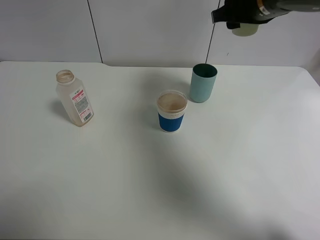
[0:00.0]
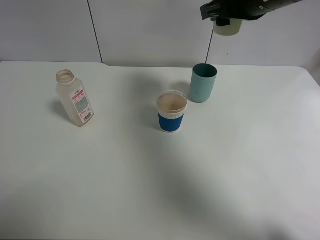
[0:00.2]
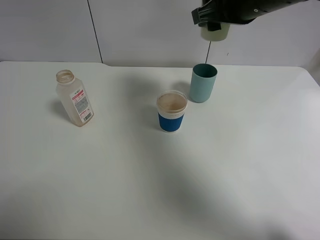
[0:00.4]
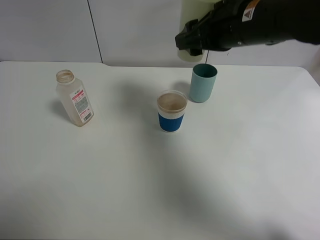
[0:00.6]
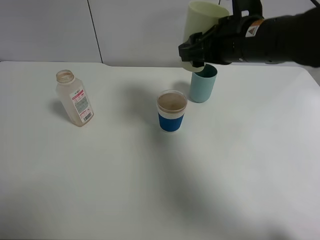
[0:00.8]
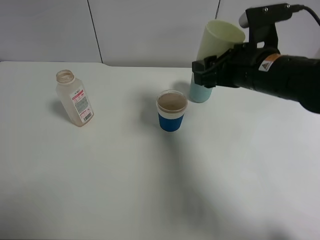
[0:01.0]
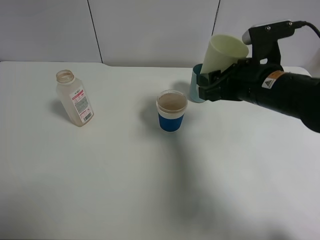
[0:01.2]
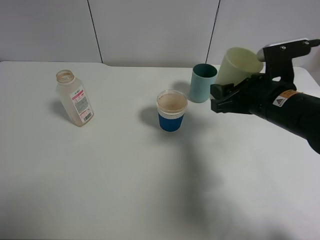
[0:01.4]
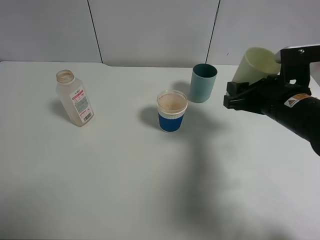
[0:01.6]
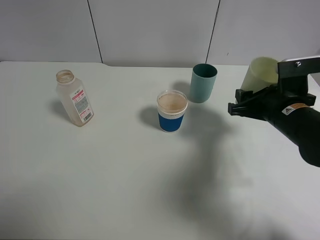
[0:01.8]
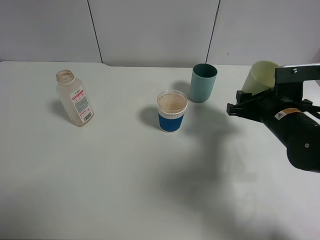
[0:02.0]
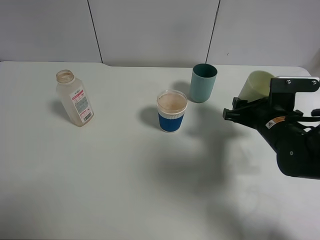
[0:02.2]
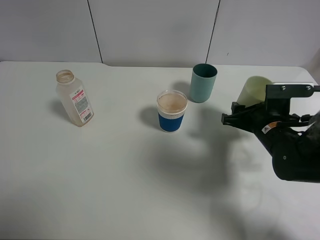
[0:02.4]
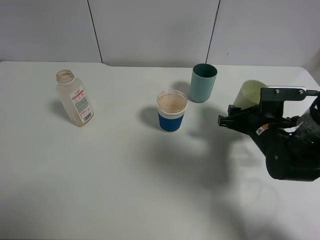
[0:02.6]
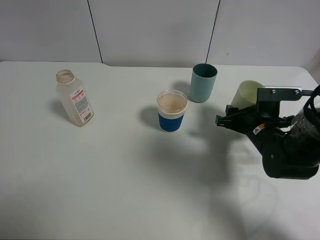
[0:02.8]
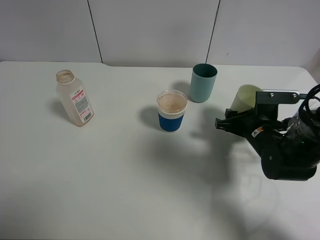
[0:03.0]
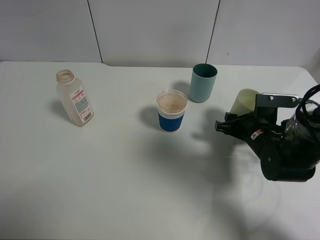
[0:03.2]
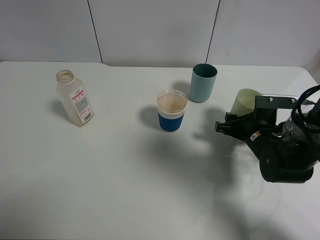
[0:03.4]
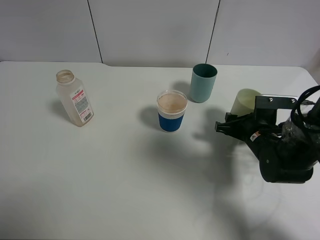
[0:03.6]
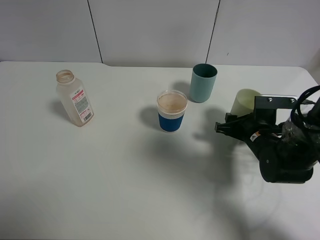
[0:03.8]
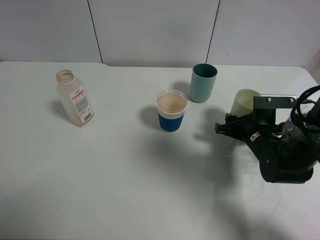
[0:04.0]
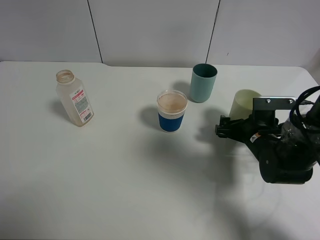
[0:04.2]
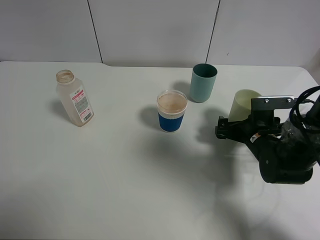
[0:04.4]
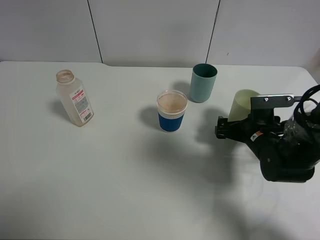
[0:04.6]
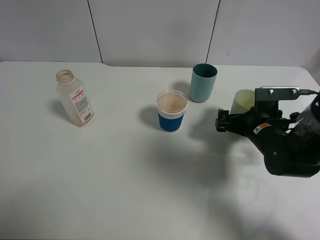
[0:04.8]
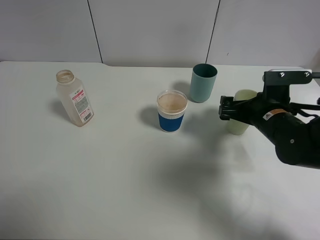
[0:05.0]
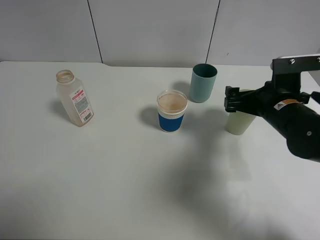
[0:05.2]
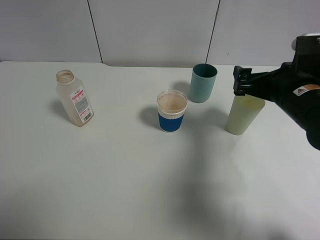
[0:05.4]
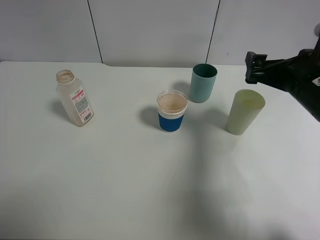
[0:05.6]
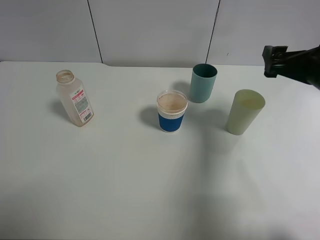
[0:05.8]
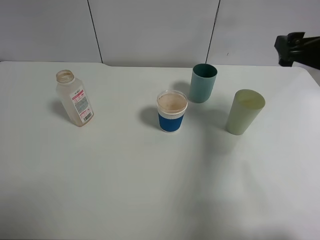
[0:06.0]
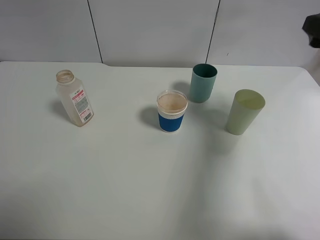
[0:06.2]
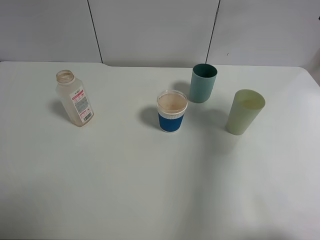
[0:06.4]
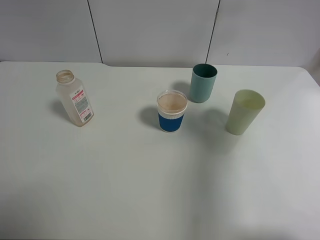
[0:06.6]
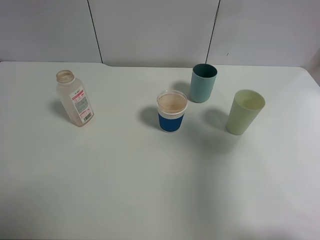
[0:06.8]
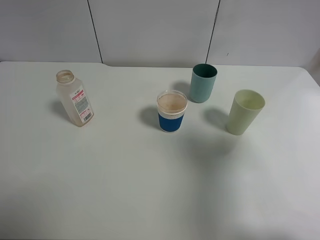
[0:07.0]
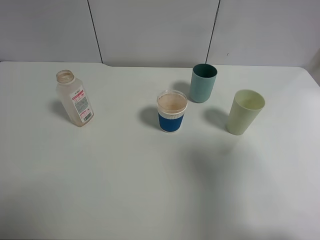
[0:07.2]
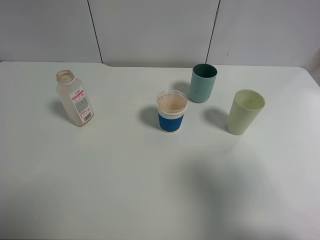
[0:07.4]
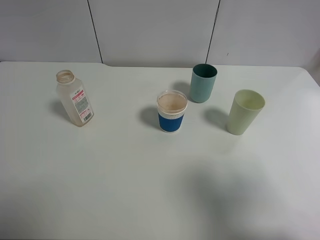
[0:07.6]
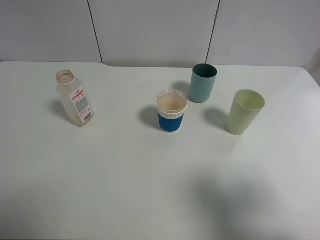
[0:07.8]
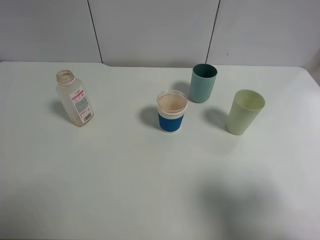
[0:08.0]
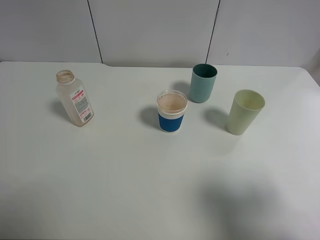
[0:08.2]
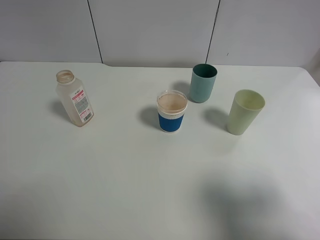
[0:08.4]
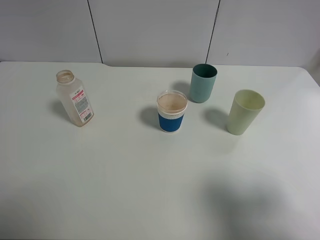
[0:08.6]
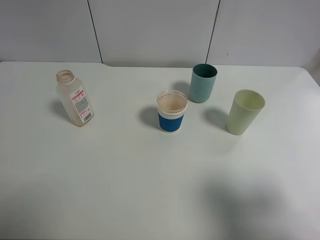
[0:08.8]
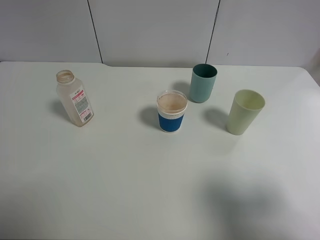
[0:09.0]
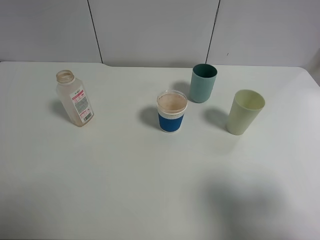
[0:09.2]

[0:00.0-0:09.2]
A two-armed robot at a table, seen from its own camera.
Task of the whole recording: use a clamp to hold the bottle of the drink, pour the beverage into a random cup, then clamp the cup containing the drink and pour the drink into another random cup.
Step, 0:00.0 to 0:04.6: Place the green plastic cup on the table with right gripper.
0:00.0 to 0:01.6: The right gripper moves downward, backward and to the right, roughly 20 cm.
0:01.6 to 0:03.0: The right gripper shifts approximately 10 cm downward.
0:03.0 to 0:04.6: The right gripper opens.
0:04.6 to 0:06.2: The right gripper heads upward, covering about 25 cm.
0:06.2 to 0:07.6: The right gripper shifts about 20 cm backward.
0:07.6 to 0:09.2: There are only small adjustments of the grippers.

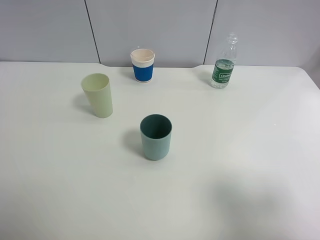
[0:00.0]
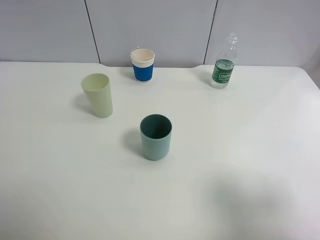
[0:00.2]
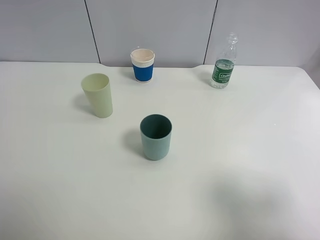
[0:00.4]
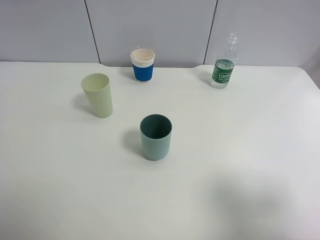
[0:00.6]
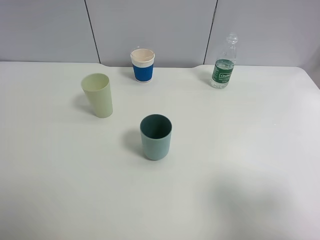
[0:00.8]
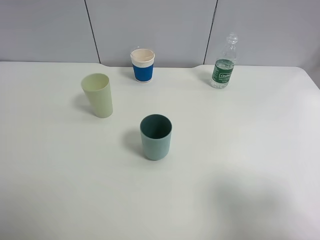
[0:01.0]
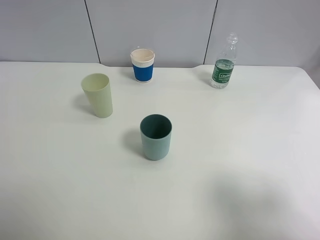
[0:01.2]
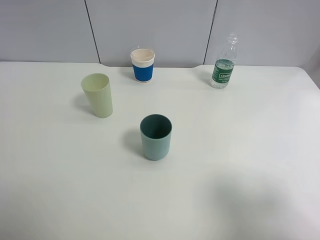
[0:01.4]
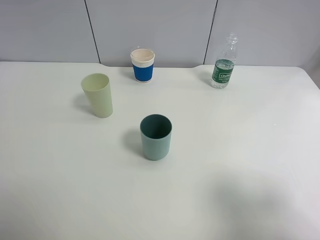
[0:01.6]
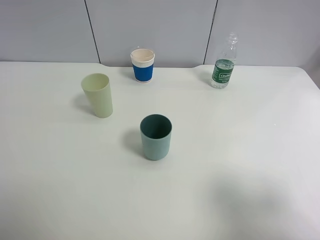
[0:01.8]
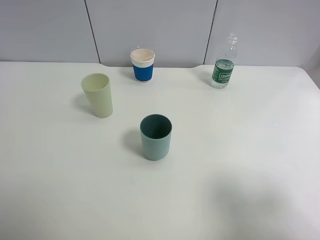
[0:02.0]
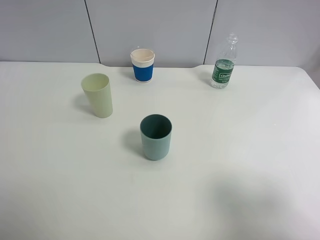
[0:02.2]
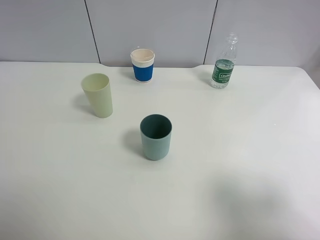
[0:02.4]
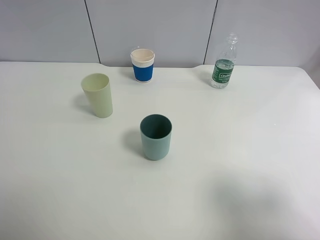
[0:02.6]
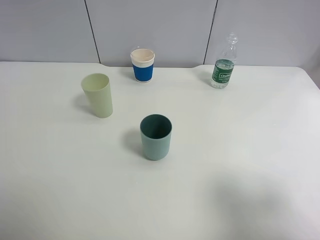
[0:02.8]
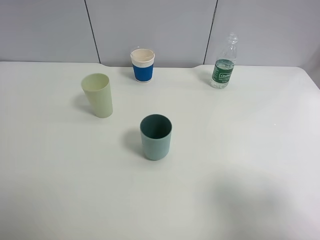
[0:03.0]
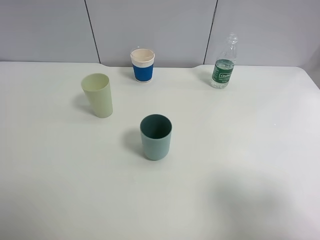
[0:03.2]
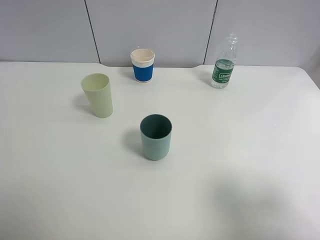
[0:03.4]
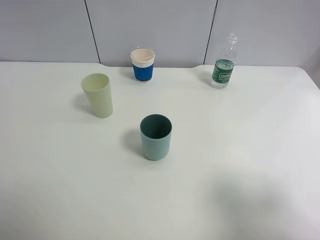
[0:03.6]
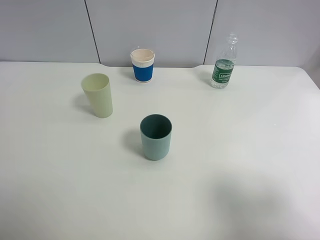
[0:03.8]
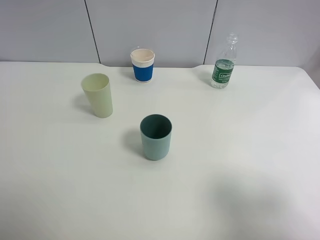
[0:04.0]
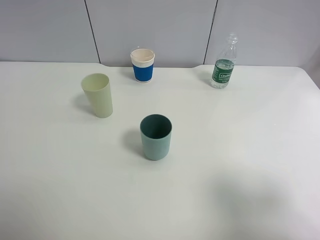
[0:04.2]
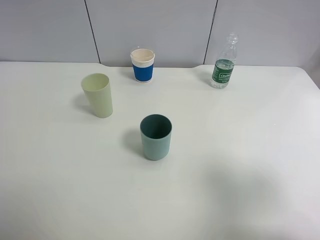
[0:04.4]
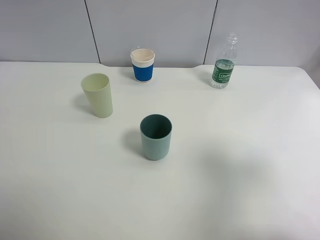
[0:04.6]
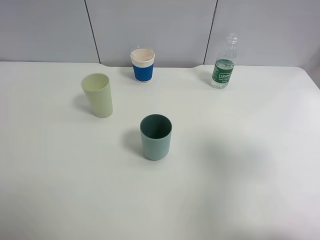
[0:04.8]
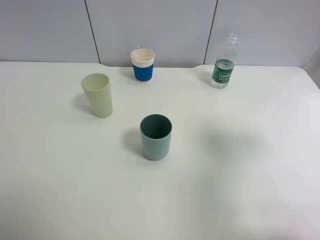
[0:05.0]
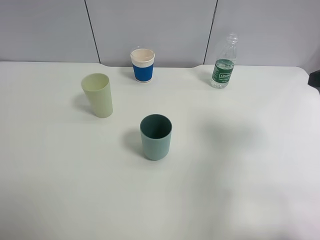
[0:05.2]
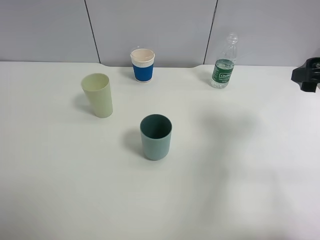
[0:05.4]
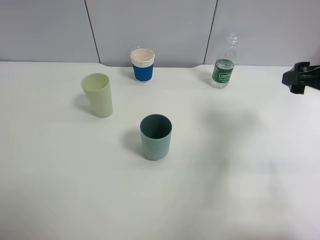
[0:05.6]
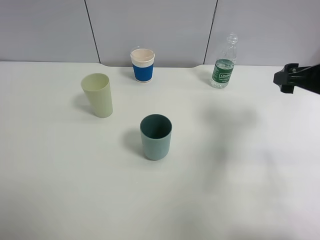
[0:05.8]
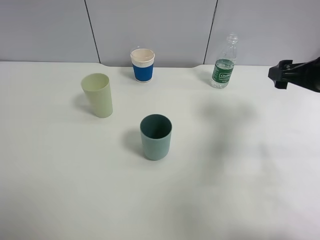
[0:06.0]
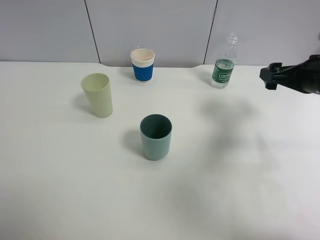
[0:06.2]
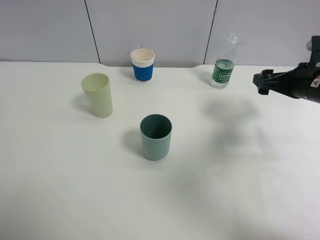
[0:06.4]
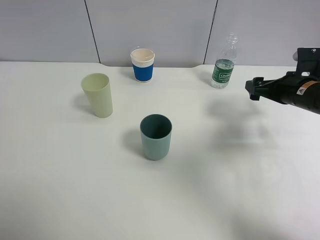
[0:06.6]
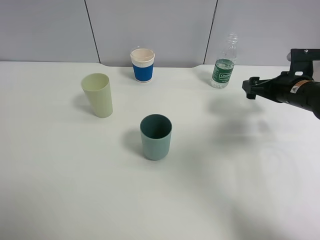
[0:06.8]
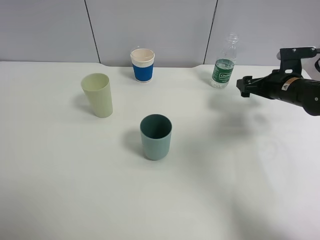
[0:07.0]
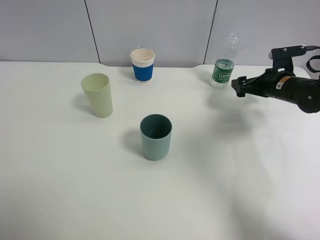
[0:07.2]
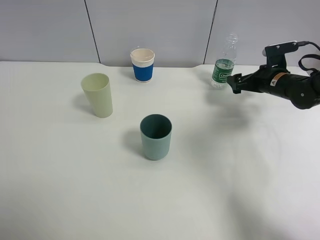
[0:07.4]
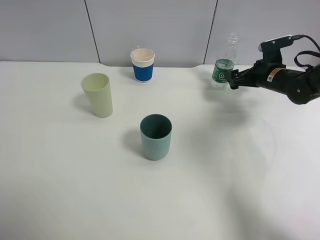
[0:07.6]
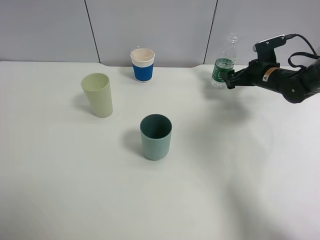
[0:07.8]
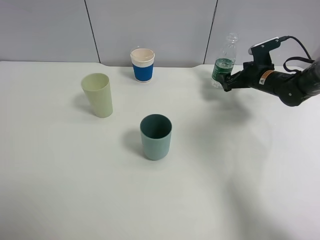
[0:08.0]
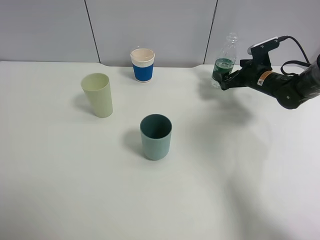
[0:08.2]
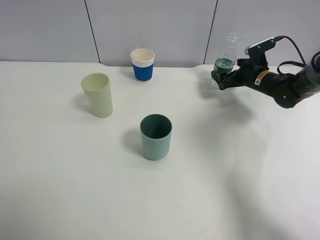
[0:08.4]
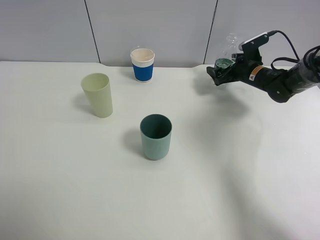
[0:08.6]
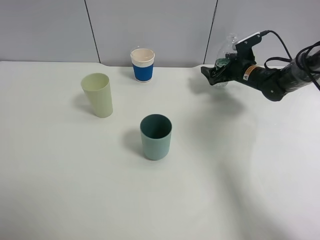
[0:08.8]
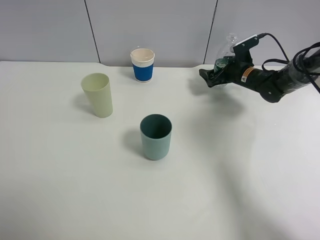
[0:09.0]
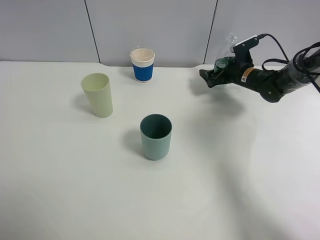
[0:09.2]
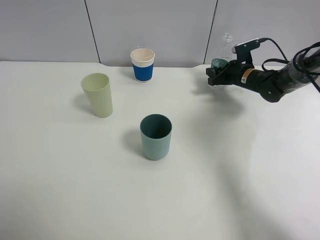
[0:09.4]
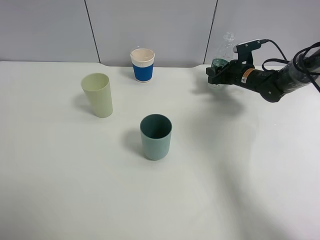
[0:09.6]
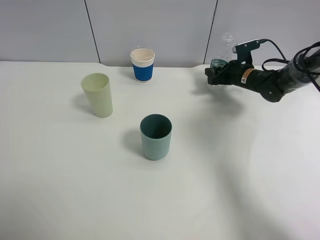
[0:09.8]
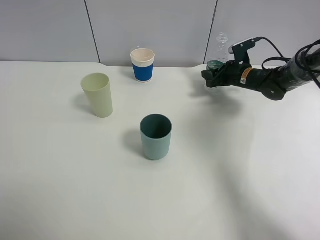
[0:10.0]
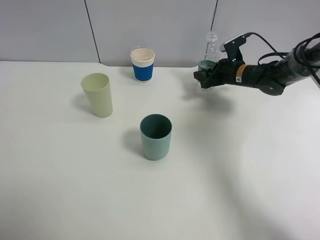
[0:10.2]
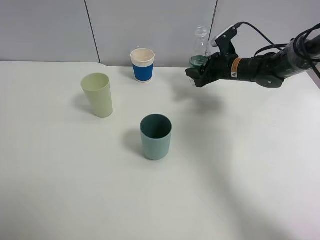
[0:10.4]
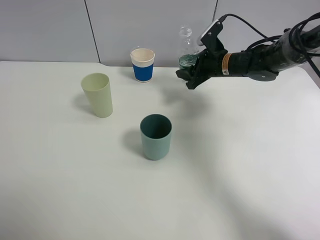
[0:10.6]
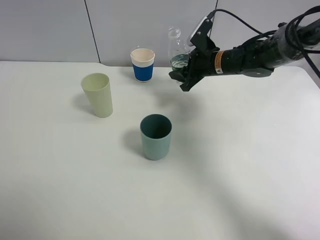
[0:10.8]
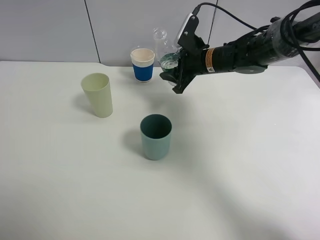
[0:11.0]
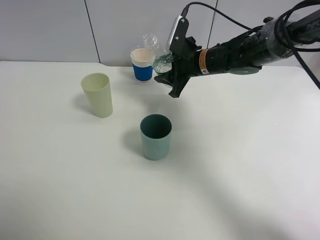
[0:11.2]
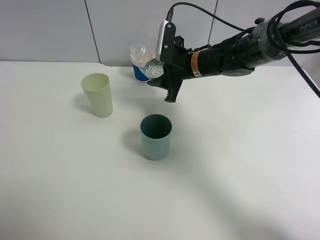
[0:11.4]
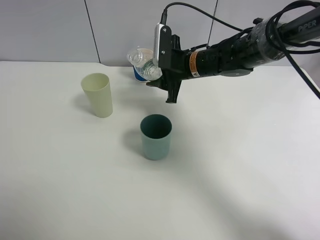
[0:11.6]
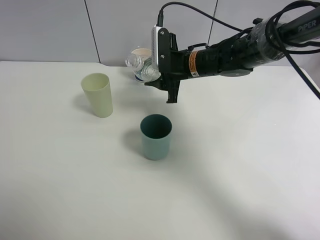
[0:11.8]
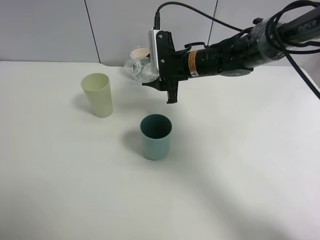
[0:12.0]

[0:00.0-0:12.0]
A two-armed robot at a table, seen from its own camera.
Task of the whole recording: use a clamp to hold the bottle of the drink, pour the beverage into a random cup, then clamp the cup containing the drink and pour the drink into another random cup.
Step, 0:00.0 to 0:10.8: Pick up the water bottle with right gripper.
0:00.0 to 0:03.0: Both grippers stay put.
0:04.4 to 0:06.0: The right gripper heads forward, covering about 25 cm.
0:06.0 to 0:07.6: The right gripper goes some 20 cm forward and downward.
0:07.6 to 0:09.0: The right gripper goes approximately 5 cm forward.
0:09.0 to 0:10.4: The right gripper shifts roughly 5 cm to the left, and closes its fingers.
0:10.4 to 0:12.0: The right gripper goes approximately 15 cm to the left and backward.

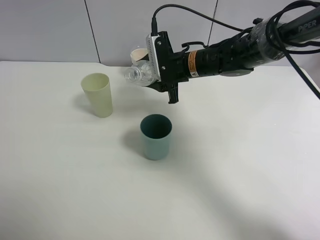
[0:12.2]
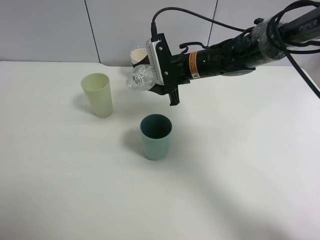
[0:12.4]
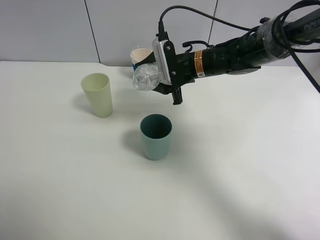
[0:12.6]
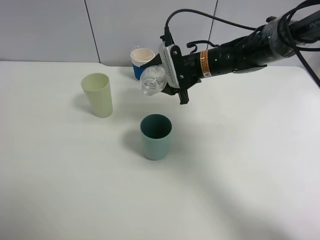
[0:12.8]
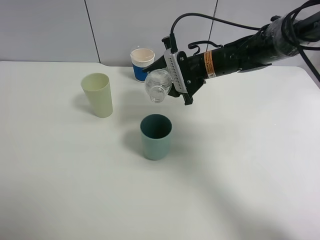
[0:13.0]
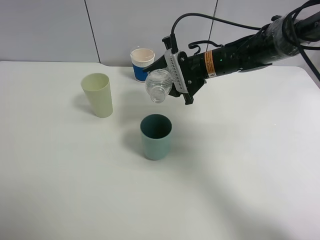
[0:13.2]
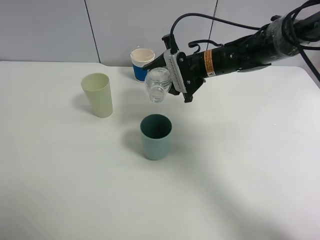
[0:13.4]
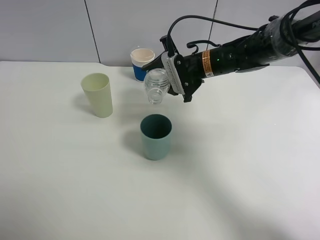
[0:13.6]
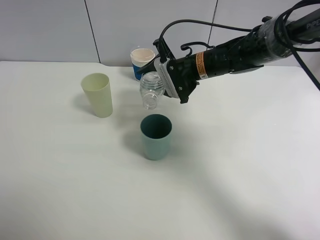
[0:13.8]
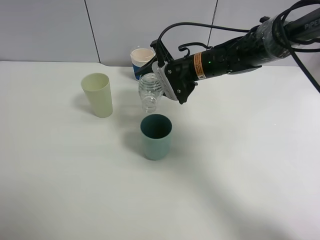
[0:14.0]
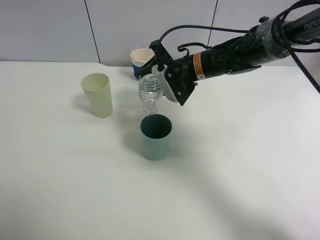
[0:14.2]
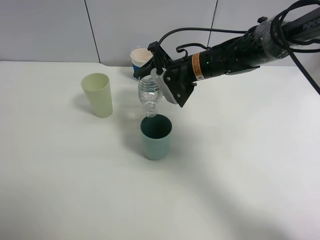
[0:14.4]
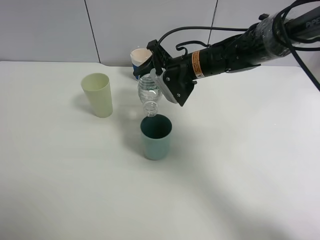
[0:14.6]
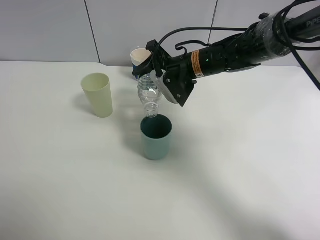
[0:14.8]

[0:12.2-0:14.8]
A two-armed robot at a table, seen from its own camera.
Task of the whole recording: use a clamp to hold the bottle of the drink, pour the beverage into a random cup, then clamp the cup containing the drink and pour the drink into another random cup.
0:13.4 to 0:14.8: The grippers move only a little.
